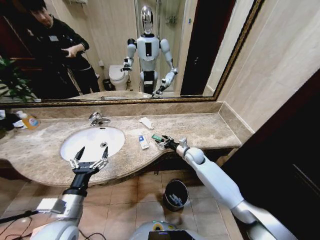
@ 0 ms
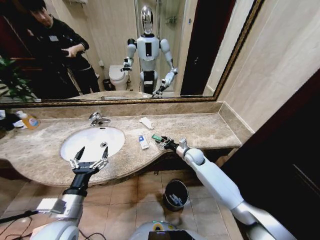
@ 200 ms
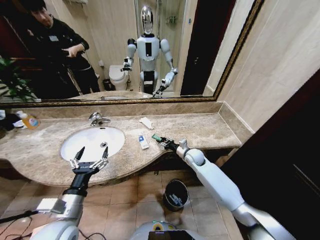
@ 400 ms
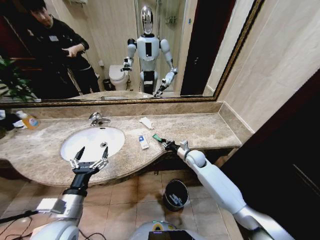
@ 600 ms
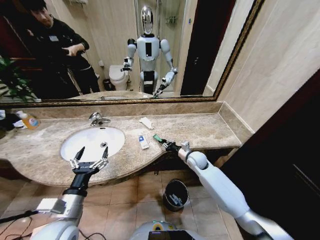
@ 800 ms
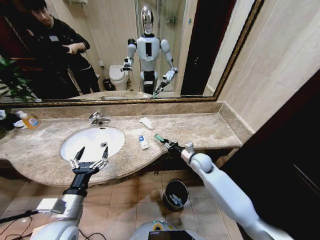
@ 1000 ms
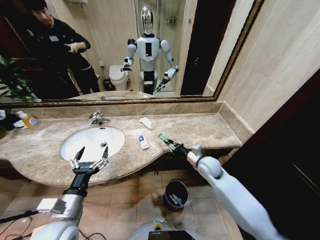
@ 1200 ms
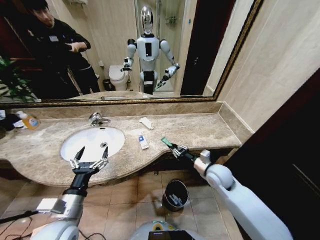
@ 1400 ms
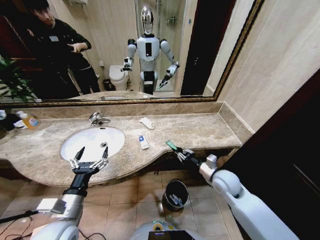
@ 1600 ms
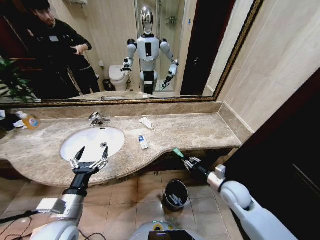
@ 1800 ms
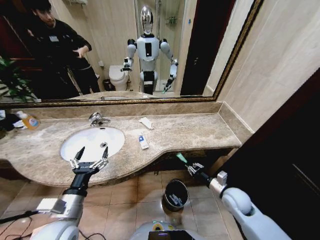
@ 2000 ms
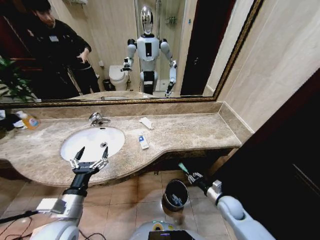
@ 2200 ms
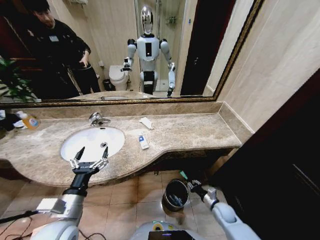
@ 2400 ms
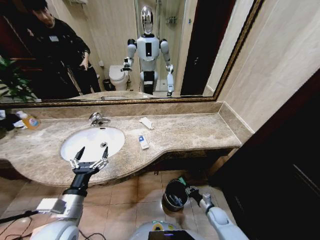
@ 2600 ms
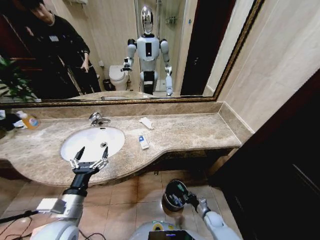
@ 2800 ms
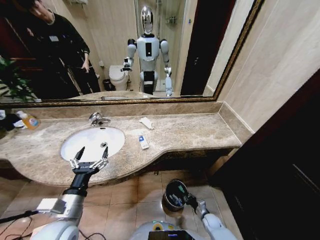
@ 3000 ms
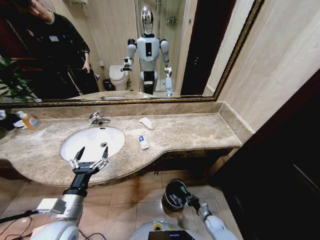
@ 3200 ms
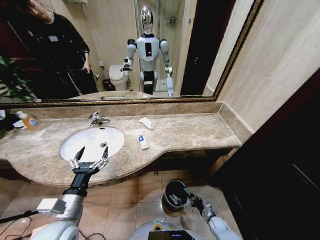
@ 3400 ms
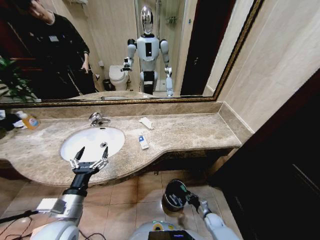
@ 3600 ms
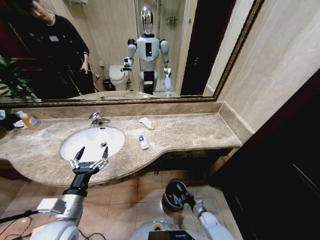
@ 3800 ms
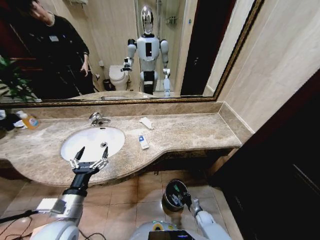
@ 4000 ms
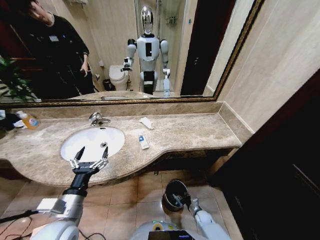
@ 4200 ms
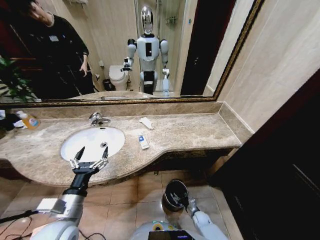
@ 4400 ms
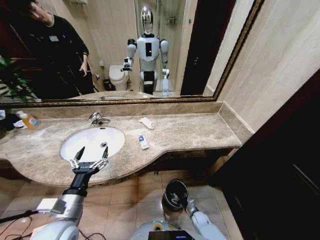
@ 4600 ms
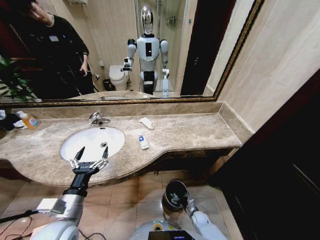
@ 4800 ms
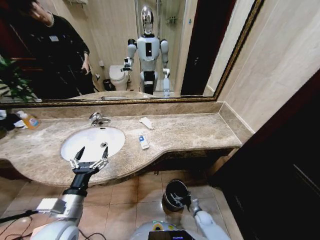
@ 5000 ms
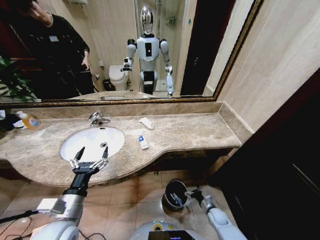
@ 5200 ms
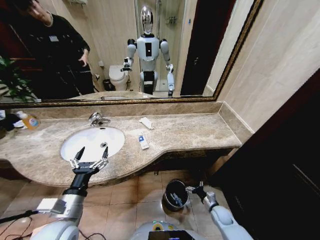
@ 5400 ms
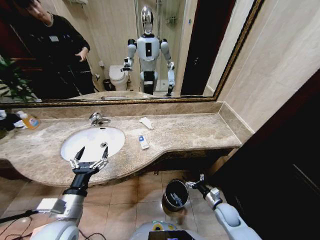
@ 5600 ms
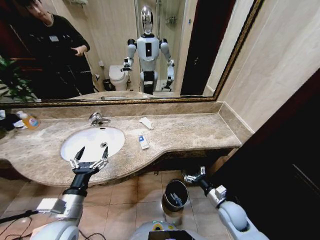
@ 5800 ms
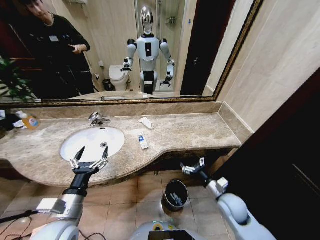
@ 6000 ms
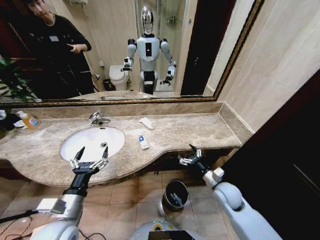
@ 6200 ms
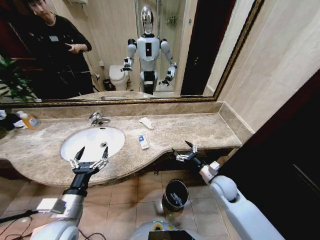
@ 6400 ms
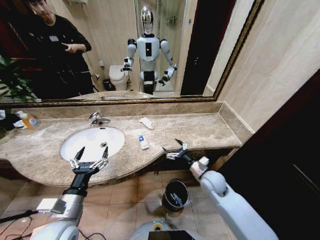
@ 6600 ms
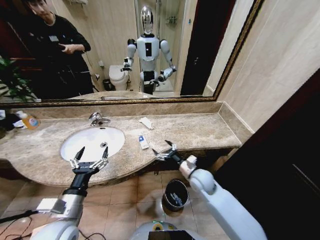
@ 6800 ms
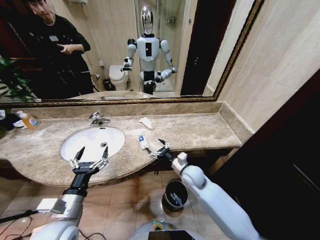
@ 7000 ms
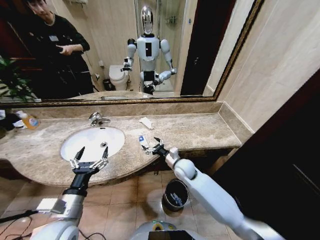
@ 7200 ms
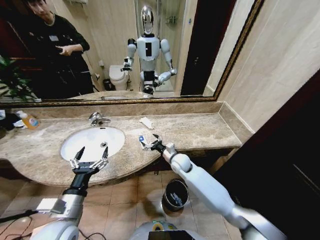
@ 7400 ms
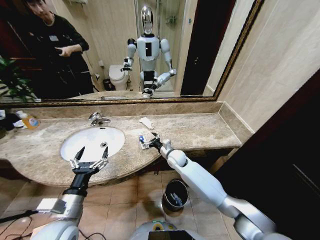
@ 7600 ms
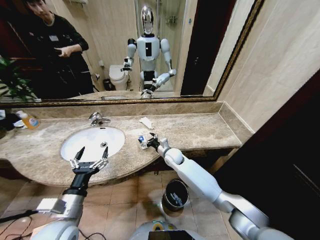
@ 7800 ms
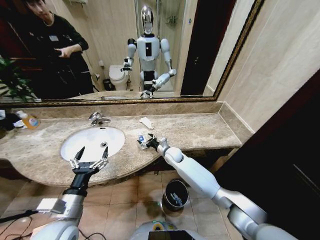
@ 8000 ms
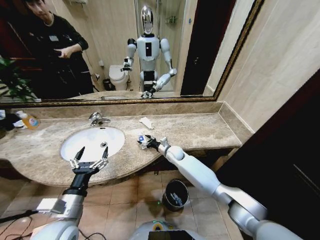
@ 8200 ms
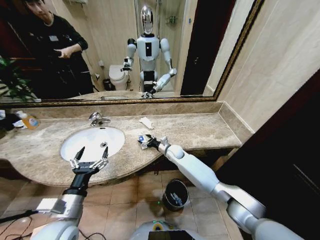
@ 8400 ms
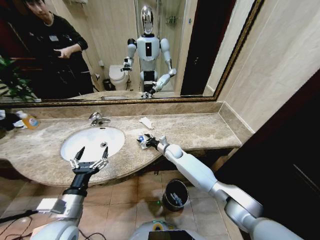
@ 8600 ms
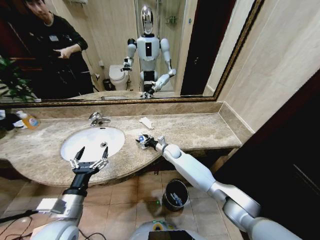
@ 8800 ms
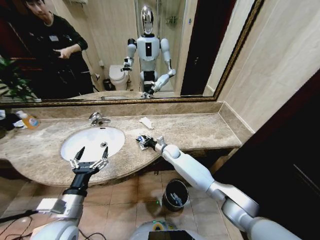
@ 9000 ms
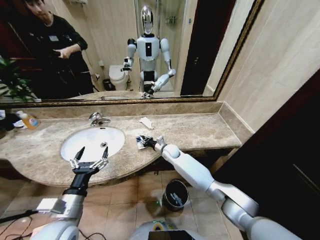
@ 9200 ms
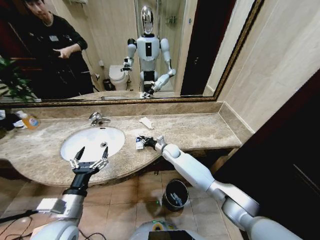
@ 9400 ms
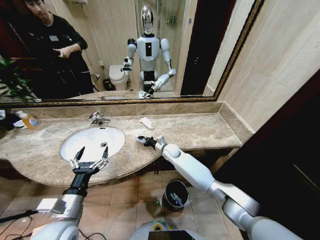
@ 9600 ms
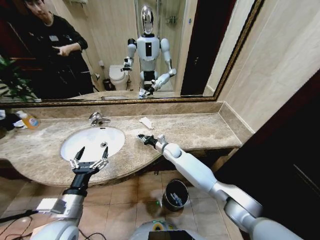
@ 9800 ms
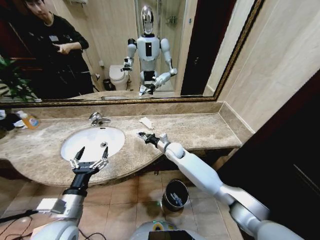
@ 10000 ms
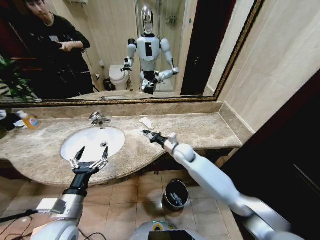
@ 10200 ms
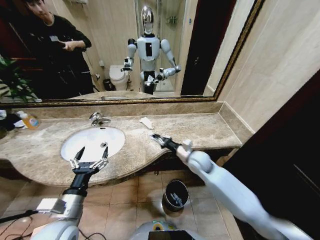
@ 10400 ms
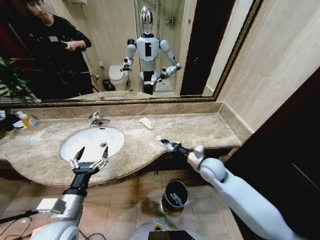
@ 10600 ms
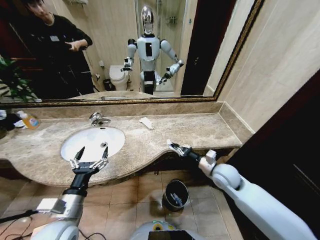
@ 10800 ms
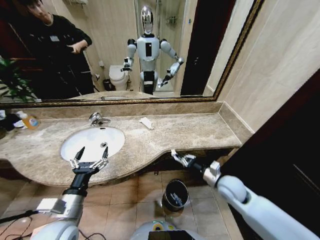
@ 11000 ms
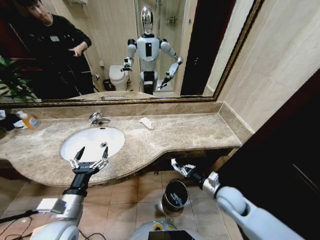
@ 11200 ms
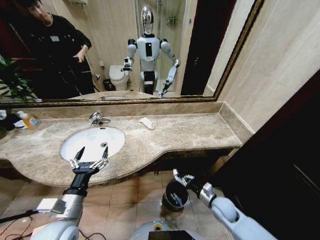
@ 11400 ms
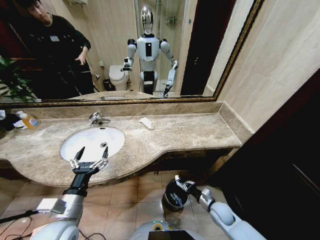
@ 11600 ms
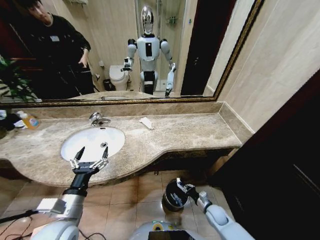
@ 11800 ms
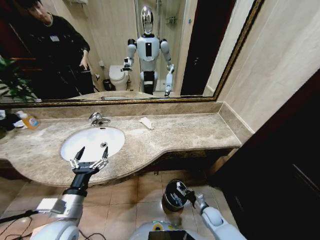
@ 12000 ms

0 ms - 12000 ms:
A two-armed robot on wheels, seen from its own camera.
Task of the whole recording: Pick up the trash from the sink and place it in the trash bin.
0 ms - 1600 ms: The right gripper goes some 20 cm backward and to the right, and closes its fingers.
1600 ms - 3000 ms: The right gripper is displaced downward by some 35 cm.
3000 ms - 4400 ms: The right gripper is displaced to the left by approximately 5 cm, and opens.
4400 ms - 6000 ms: The right gripper heads upward, covering some 30 cm.
6000 ms - 7600 ms: The right gripper is displaced forward and to the left by approximately 30 cm.
7600 ms - 9000 ms: The right gripper goes roughly 5 cm forward, and closes up.
9000 ms - 10400 ms: The right gripper moves backward, to the right and upward, approximately 20 cm, and closes its fingers.
10400 ms - 12000 ms: The right gripper heads downward and backward, covering roughly 35 cm.

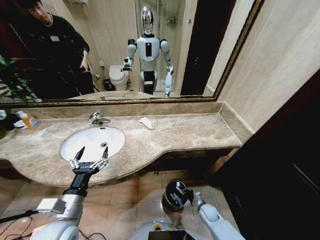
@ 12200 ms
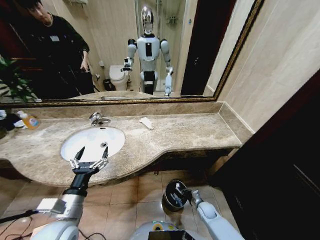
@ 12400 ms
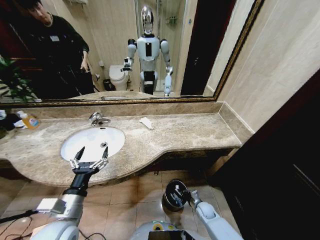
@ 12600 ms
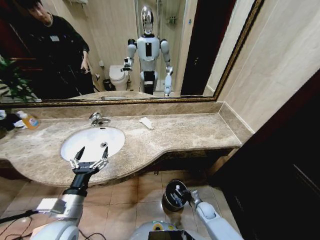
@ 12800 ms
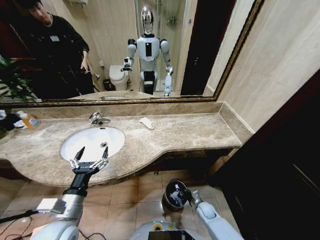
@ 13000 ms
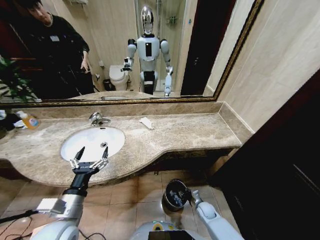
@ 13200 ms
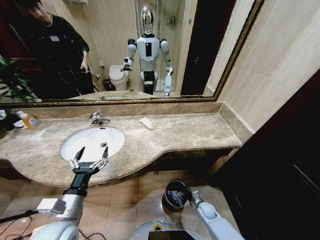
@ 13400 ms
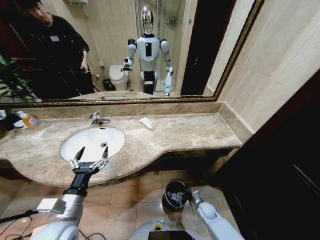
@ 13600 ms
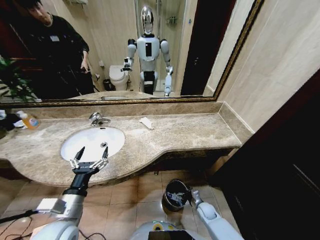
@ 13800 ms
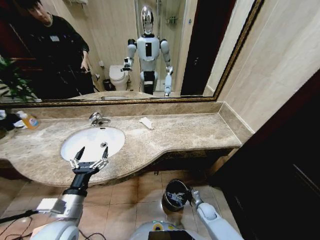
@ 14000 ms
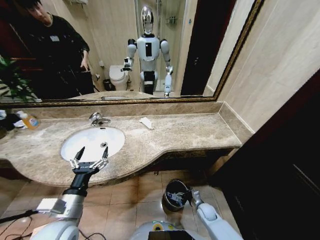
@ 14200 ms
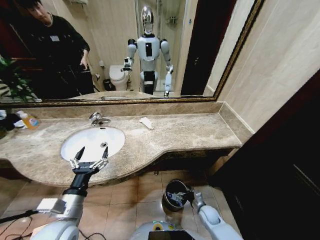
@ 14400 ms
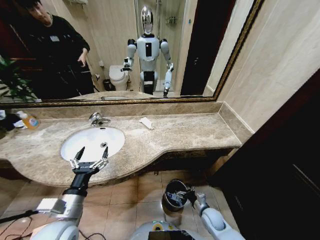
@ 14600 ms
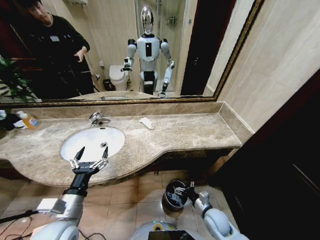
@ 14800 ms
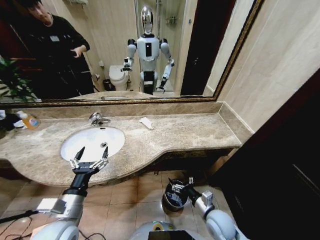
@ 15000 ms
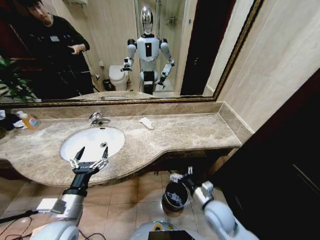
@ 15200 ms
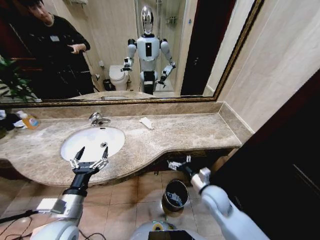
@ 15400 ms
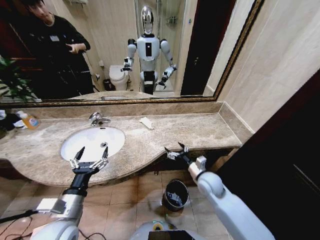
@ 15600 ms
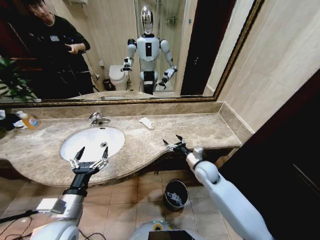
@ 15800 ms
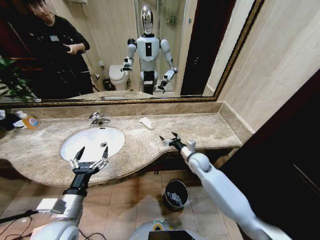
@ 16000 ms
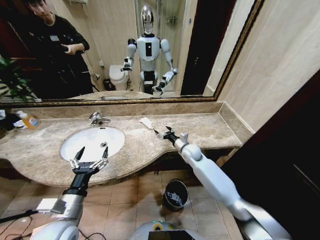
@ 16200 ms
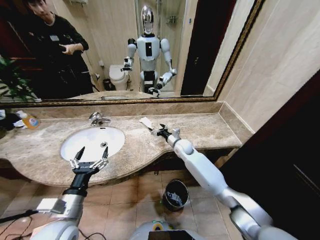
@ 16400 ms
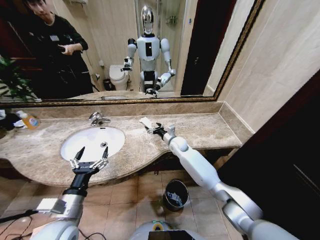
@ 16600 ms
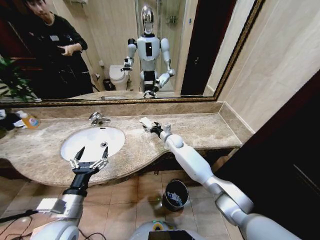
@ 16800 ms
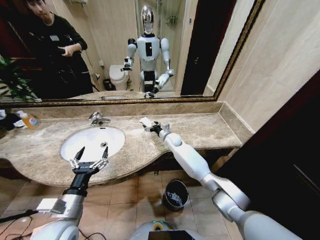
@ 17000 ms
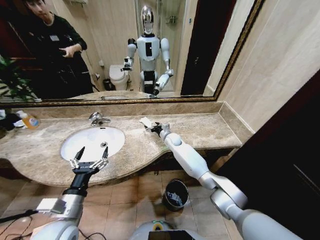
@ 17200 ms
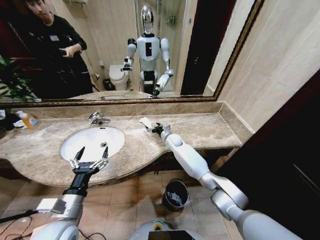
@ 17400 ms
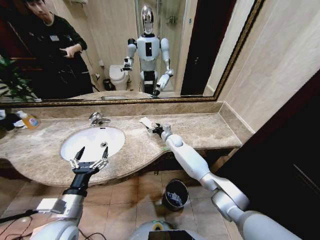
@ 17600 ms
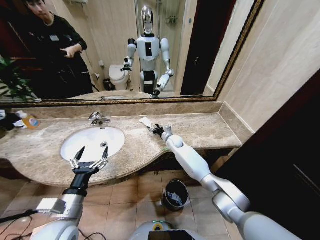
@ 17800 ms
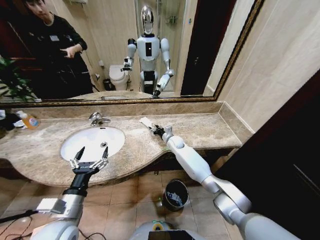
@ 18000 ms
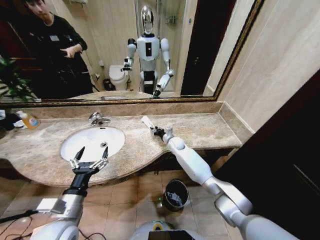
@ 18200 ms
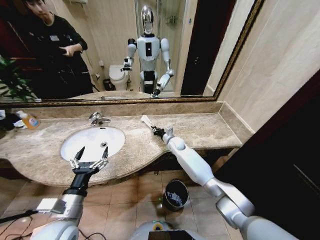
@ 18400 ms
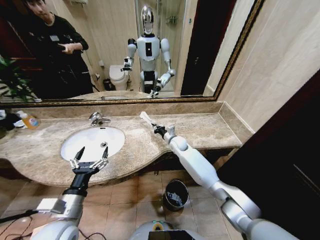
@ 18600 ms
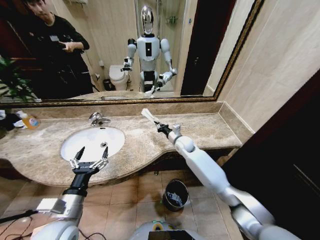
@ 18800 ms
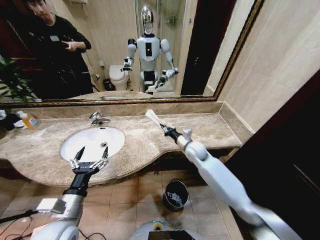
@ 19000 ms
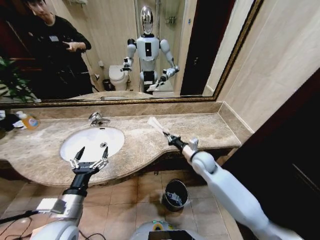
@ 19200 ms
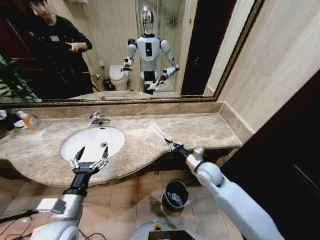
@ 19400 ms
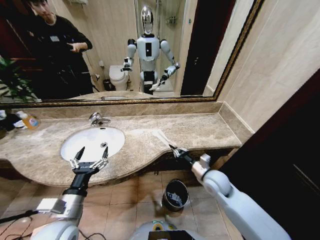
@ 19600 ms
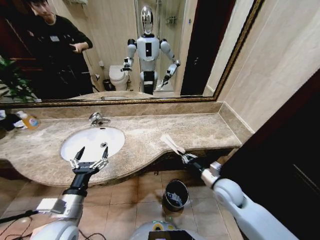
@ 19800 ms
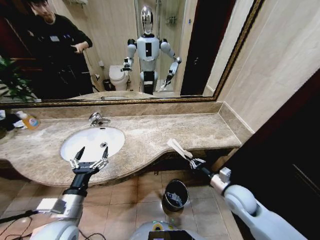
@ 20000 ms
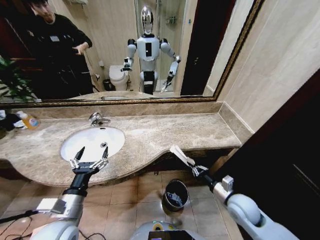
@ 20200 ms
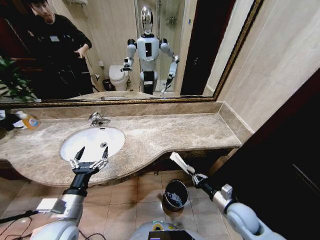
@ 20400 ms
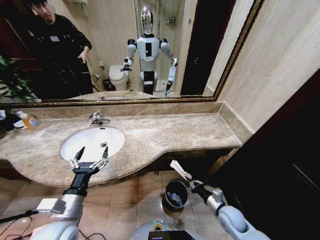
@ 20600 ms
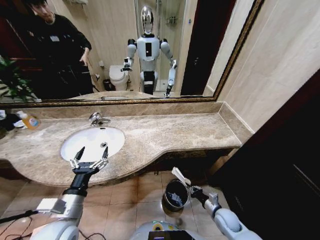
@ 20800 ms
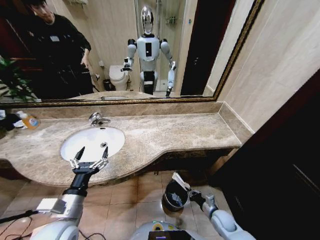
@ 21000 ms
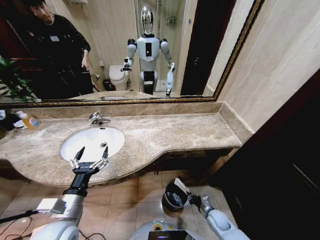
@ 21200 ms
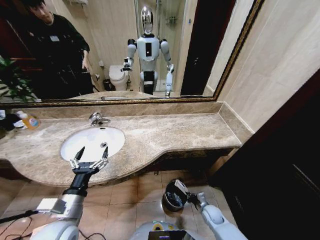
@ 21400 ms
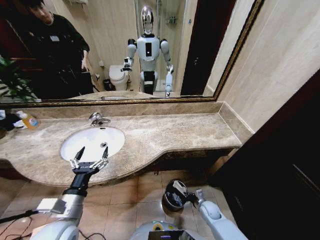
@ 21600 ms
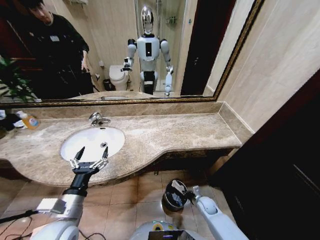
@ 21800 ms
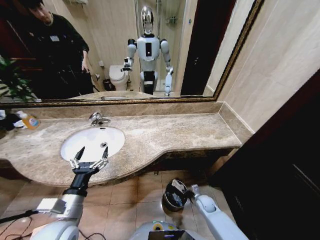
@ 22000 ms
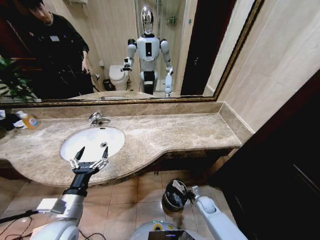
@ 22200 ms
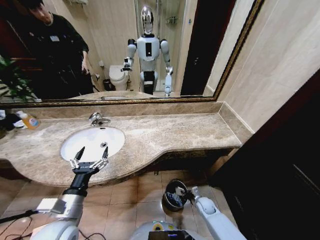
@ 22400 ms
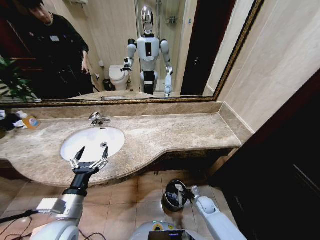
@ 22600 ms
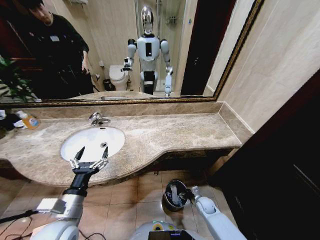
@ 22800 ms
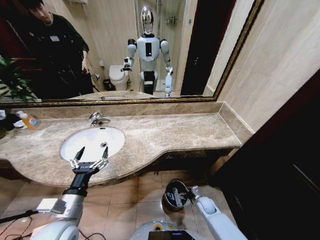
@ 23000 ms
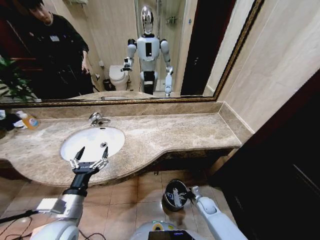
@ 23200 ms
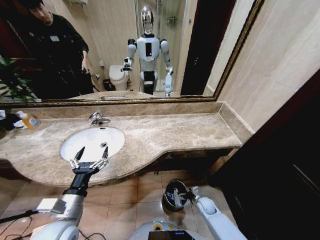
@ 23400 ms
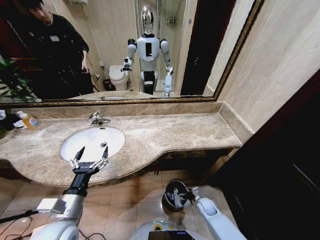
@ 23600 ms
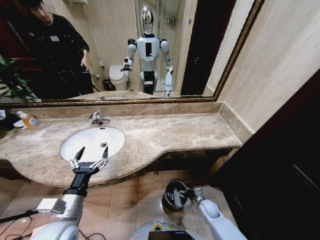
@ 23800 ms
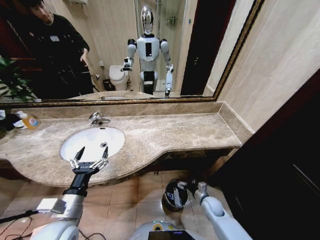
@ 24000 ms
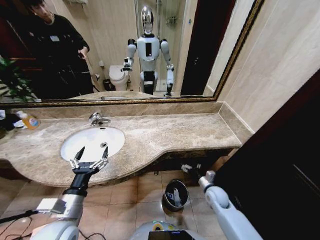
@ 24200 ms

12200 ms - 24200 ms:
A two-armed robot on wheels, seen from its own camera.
Task of the whole recording: Pick up the trash from the sink and place it in the trash bin.
12200 ms - 13800 ms: The right gripper opens its fingers.
13800 ms - 15200 ms: The right gripper heads upward, covering approximately 25 cm.
15200 ms - 16600 ms: The right gripper heads forward, covering roughly 30 cm.
16600 ms - 18200 ms: The right gripper closes.
18200 ms - 19800 ms: The right gripper heads backward and to the right, covering approximately 30 cm.
19800 ms - 21200 ms: The right gripper shifts about 25 cm downward.
21200 ms - 22600 ms: The right gripper moves forward, approximately 5 cm, and opens.
22600 ms - 24200 ms: The right gripper is displaced upward by approximately 15 cm, and opens its fingers.
